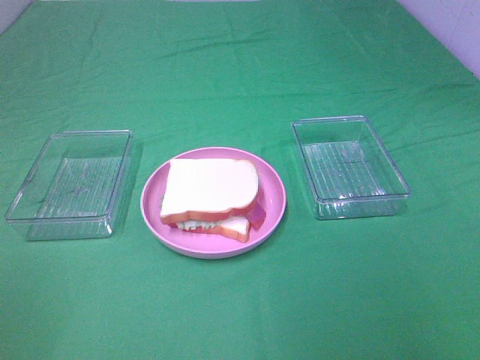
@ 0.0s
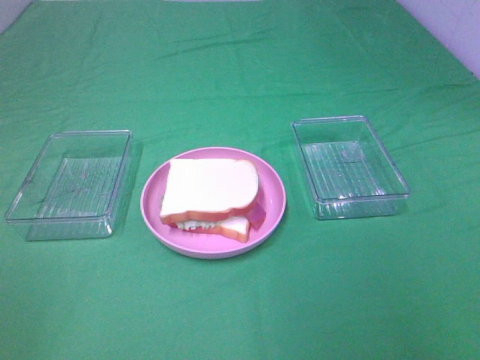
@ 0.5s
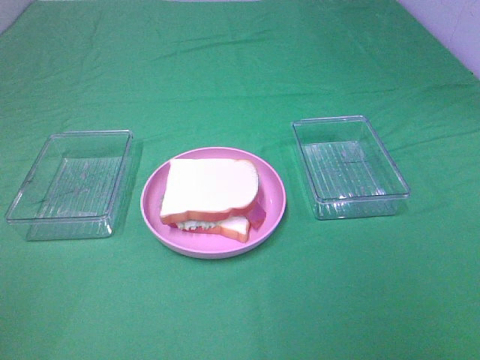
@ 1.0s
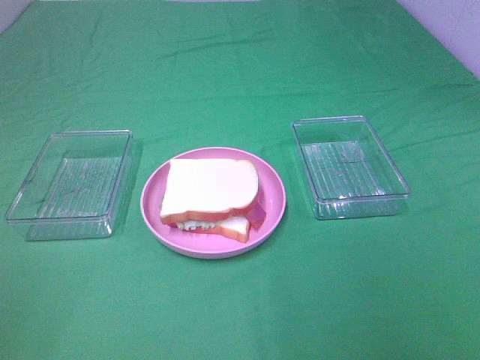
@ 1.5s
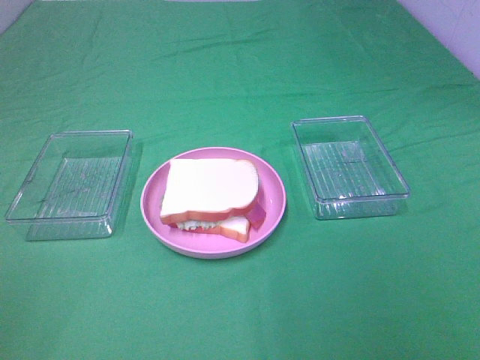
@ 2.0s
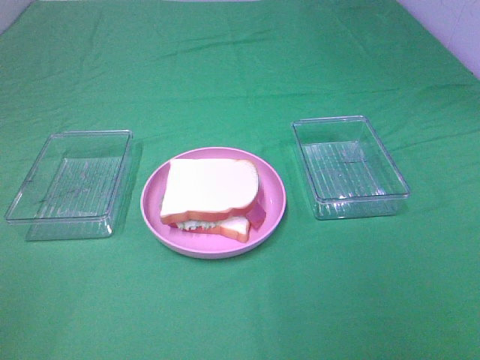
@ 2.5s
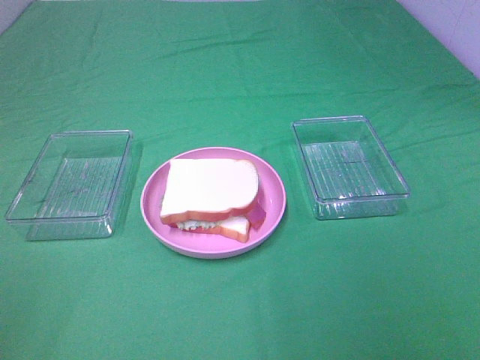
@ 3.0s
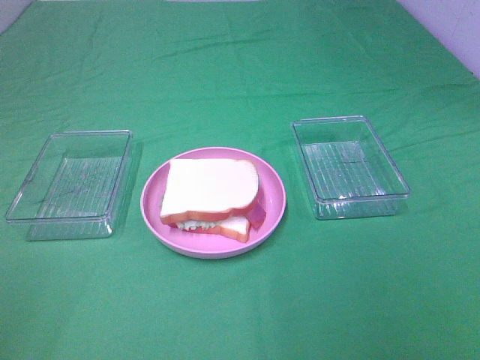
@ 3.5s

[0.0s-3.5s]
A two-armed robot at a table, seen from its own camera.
Task of the whole recording: Make sandwiches.
2.0s to 3.5s: Neither gripper changes place.
